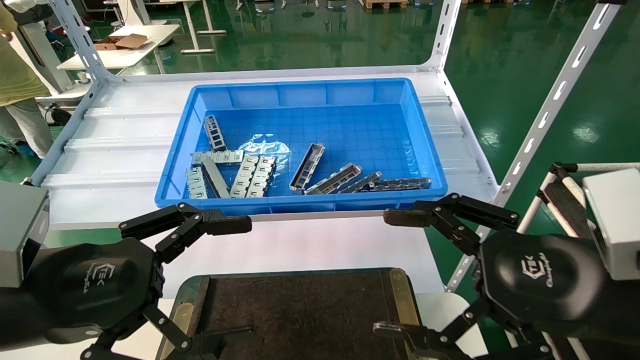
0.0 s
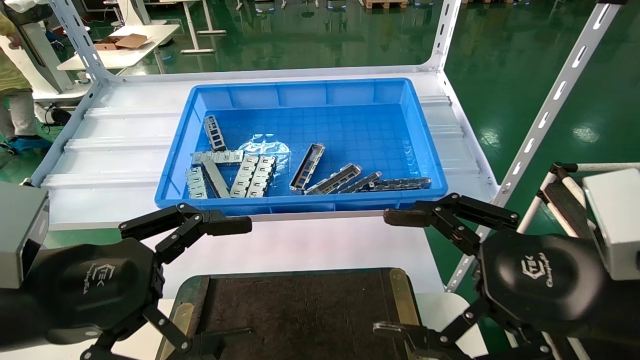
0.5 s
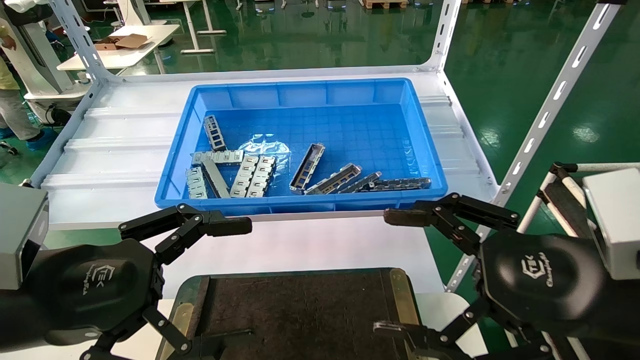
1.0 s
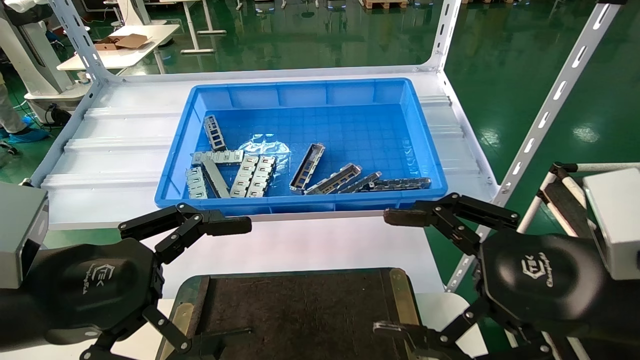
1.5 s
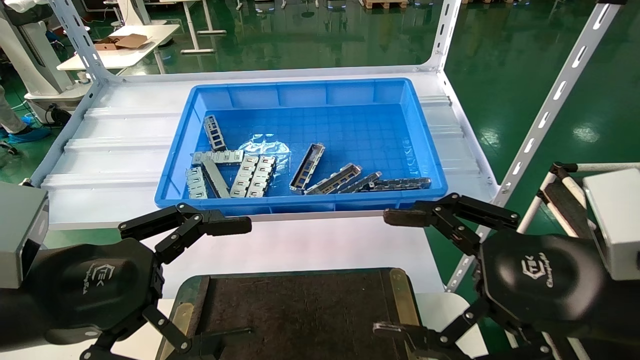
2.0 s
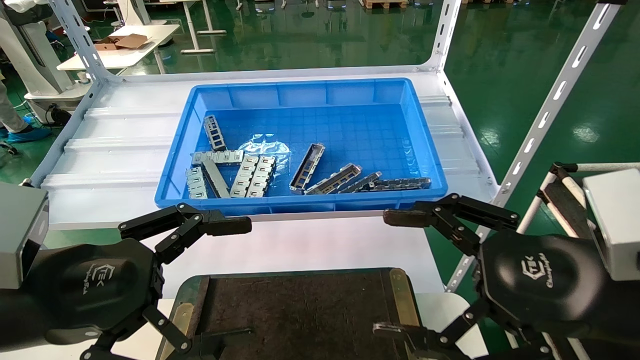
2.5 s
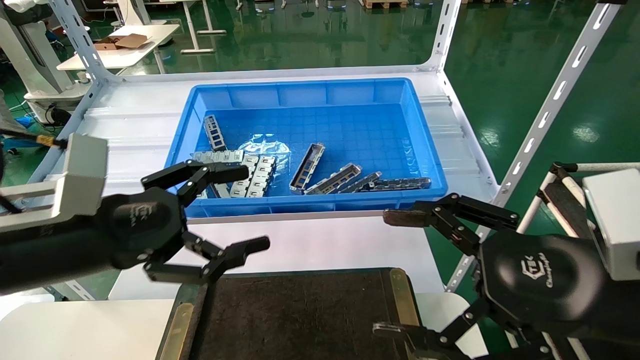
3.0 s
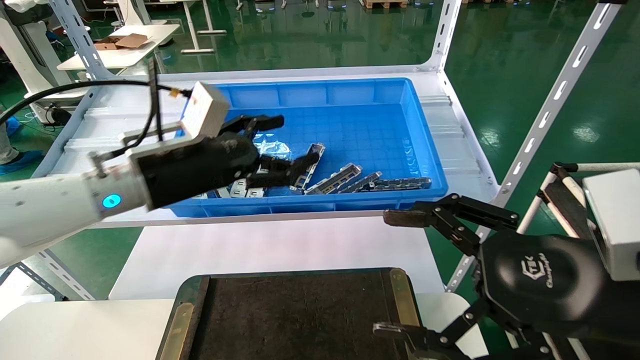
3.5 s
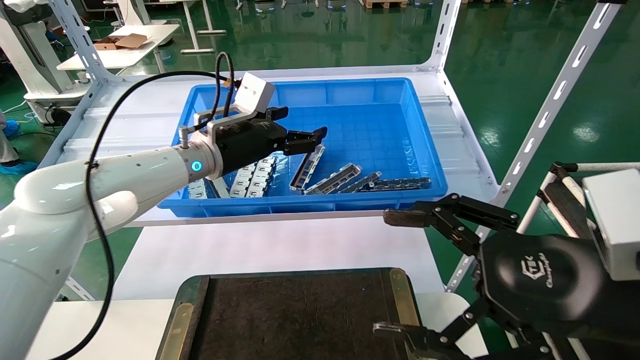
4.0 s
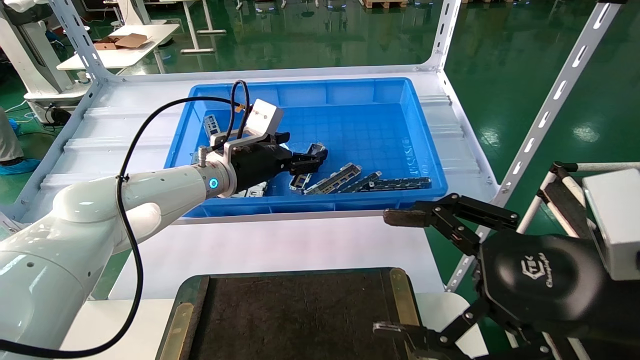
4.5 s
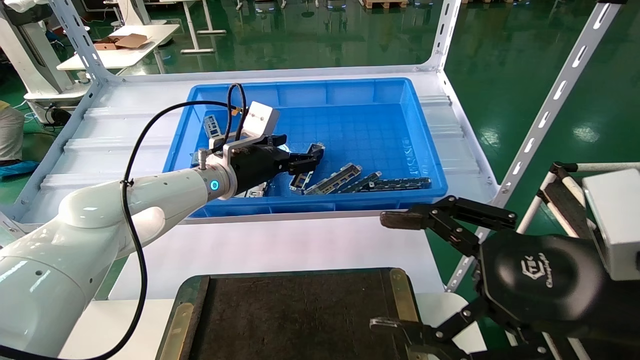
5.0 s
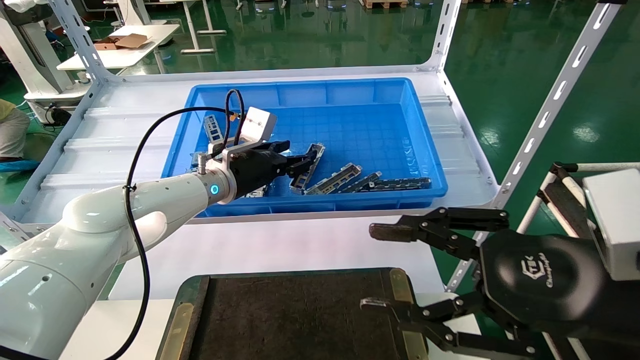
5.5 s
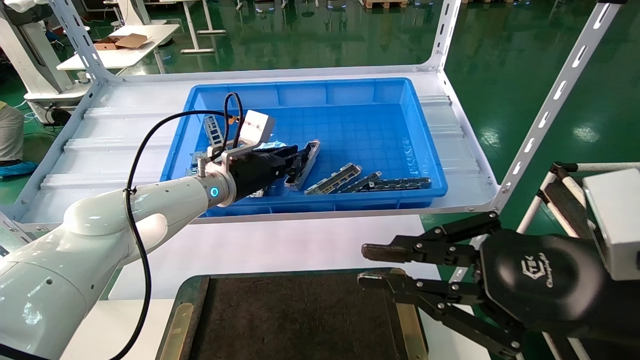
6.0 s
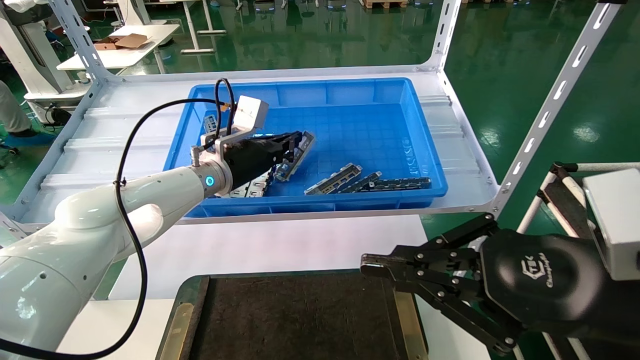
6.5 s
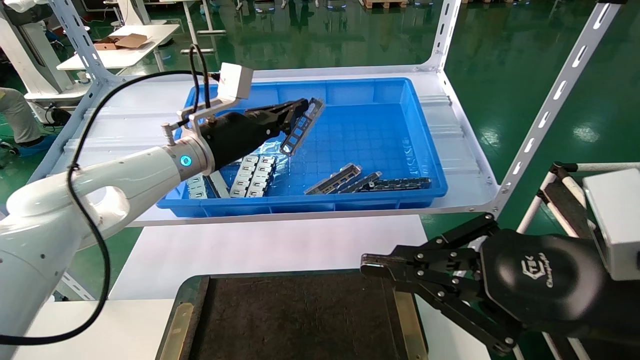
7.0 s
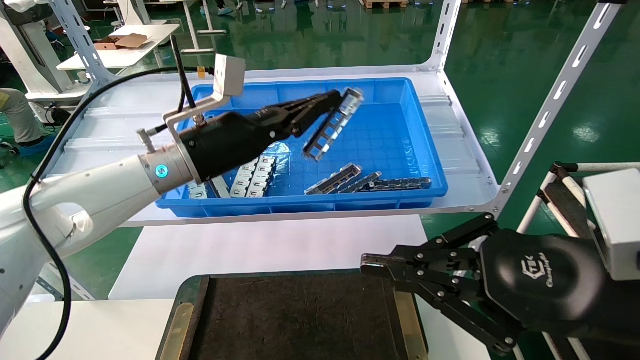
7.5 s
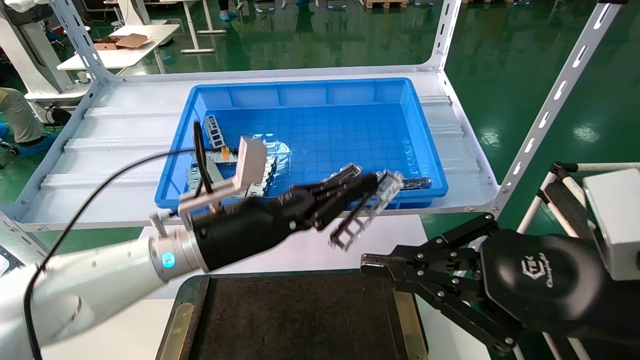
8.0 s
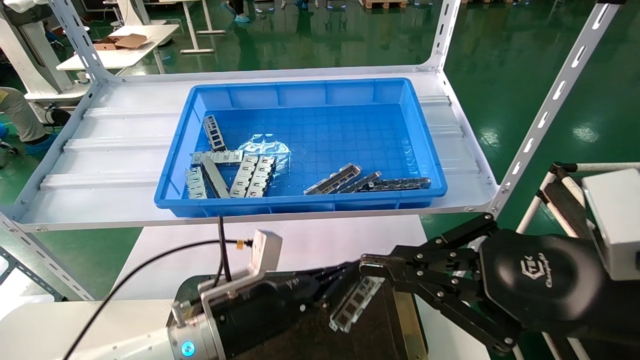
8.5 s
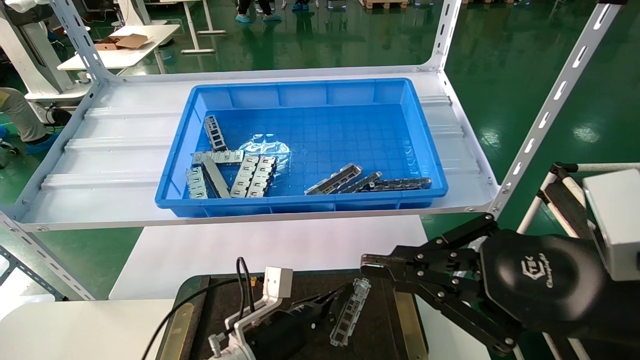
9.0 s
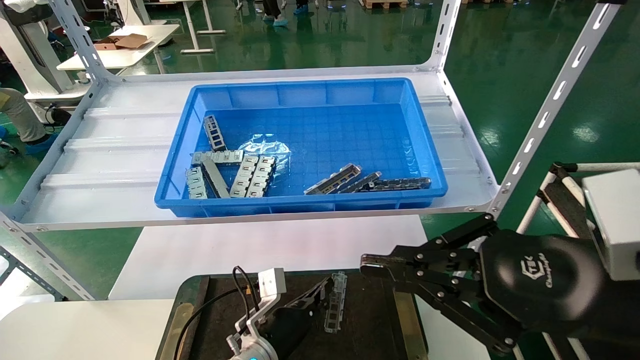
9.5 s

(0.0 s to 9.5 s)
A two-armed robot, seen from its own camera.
Task of the whole recording: Grasp the part with one hand and place it on the black container.
Step, 3.0 s - 6.5 s: Pick up the front USB bracket from the feeding area.
0.0 s - 2.0 s: Both grippers stay put.
2.0 s - 4.0 s: The left gripper shifts approximately 30 cm forward.
4.0 s - 5.5 s: The left gripper changes place by approximately 5 cm.
5.5 s - 7.5 s: The left gripper heads backward and upward, covering roughly 10 cm, and closes its fingers. The right gripper closes up.
7.5 s - 9.5 s: The left gripper is displaced downward by approximately 30 cm.

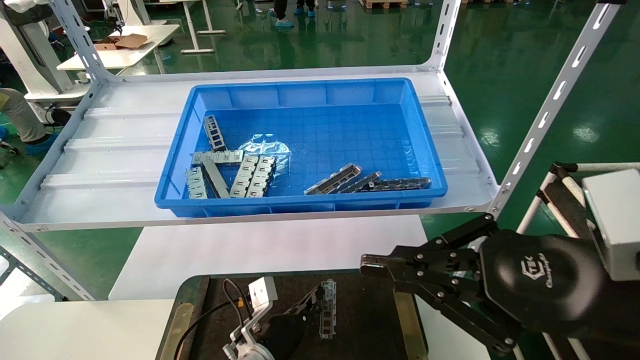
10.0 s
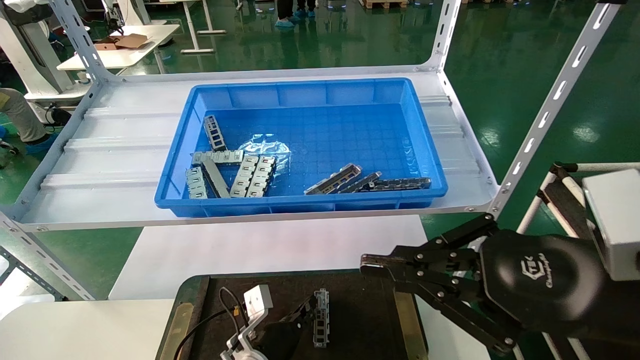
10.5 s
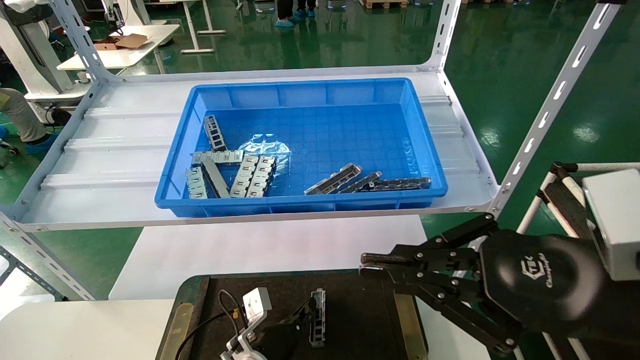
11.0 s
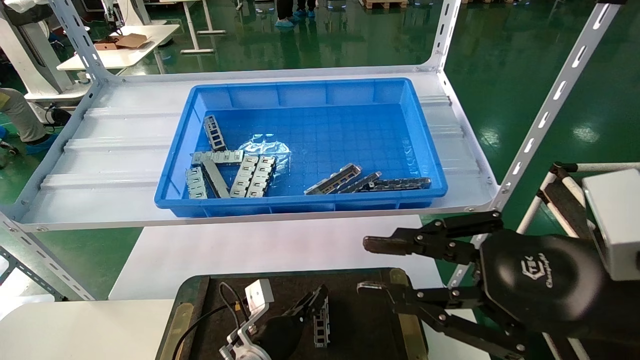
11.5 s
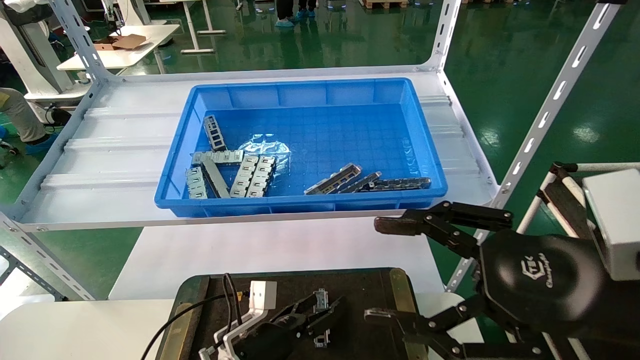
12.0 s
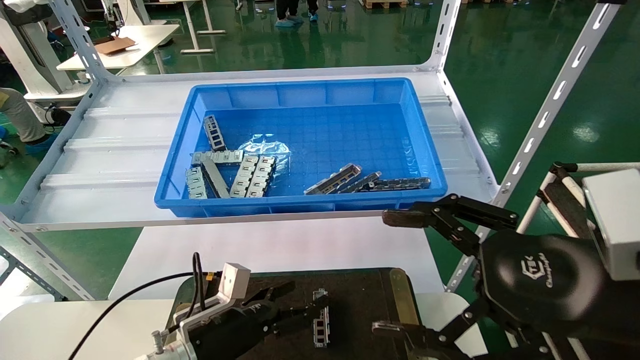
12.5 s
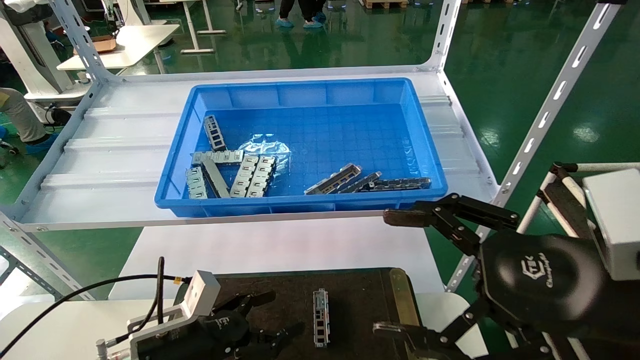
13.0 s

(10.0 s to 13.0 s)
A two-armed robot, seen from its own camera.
Task of the whole recording: Grasp the part with one hand and place it on the black container.
Step, 10.0 s - 12.0 s: Place the front USB bracket into the box.
10.0 s - 11.5 s: The grippers make only small movements.
11.5 s - 13.0 s: The left gripper is displaced to the left, upward and backward by roughly 20 cm, and opens up; the right gripper opens up.

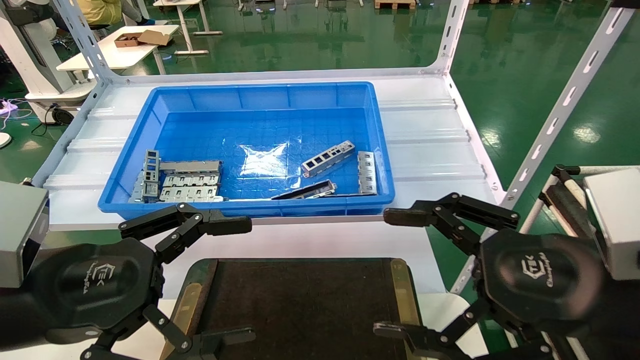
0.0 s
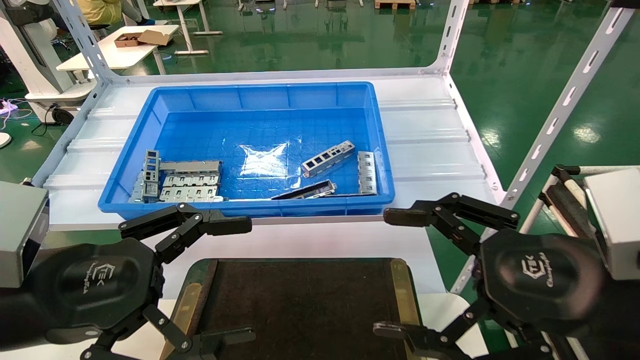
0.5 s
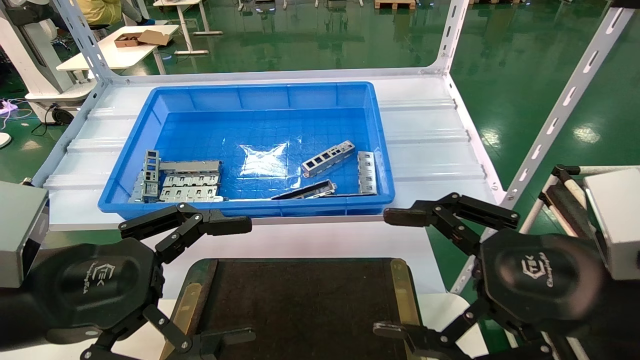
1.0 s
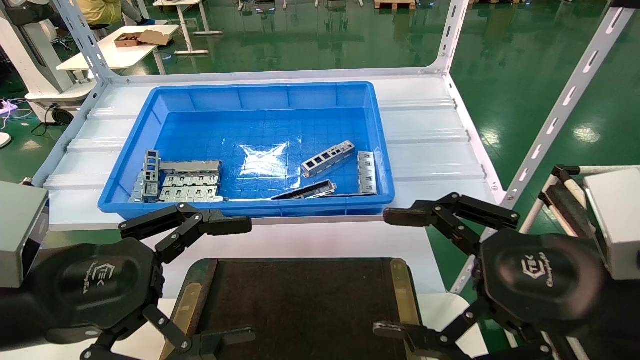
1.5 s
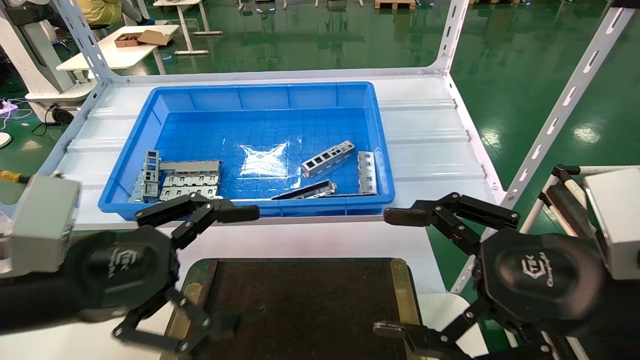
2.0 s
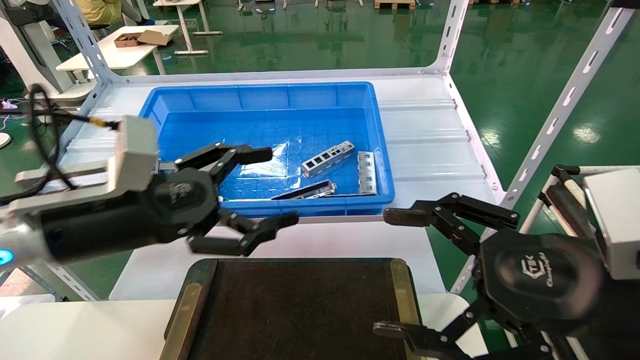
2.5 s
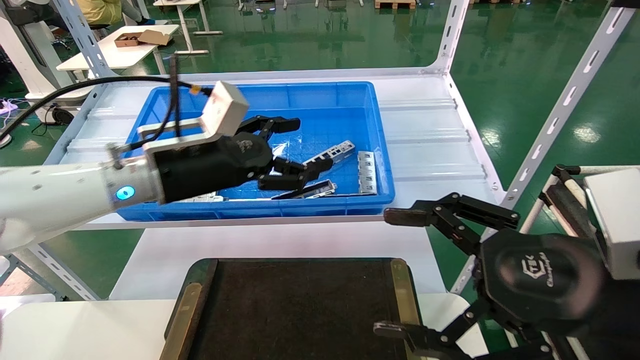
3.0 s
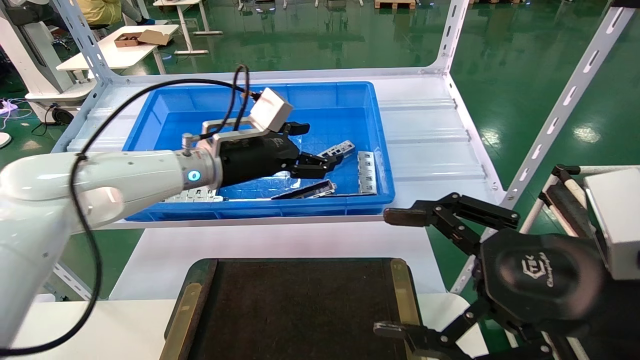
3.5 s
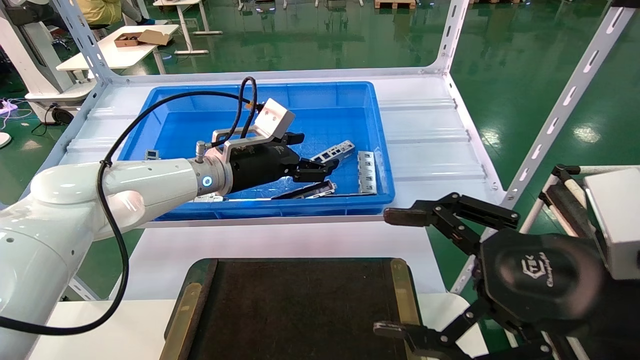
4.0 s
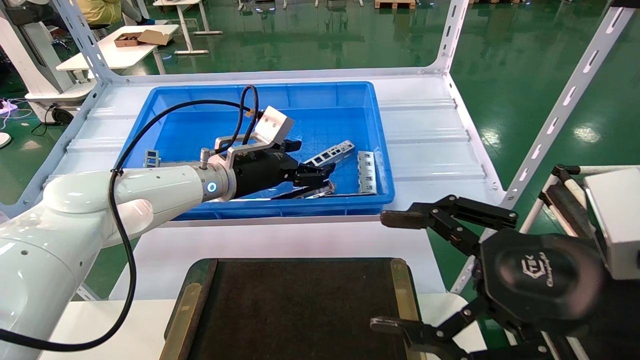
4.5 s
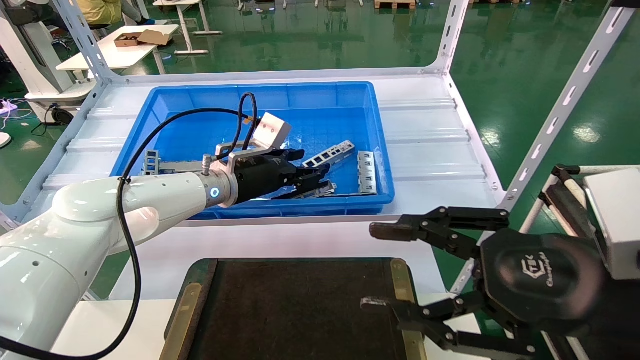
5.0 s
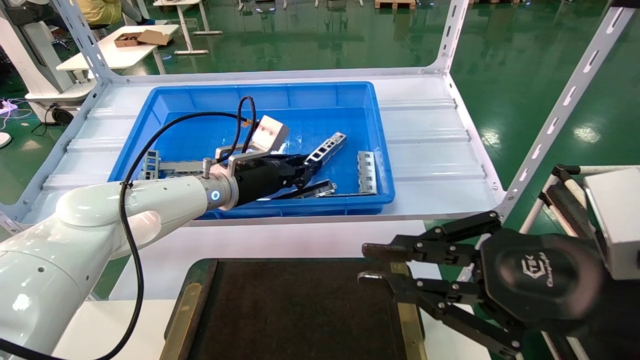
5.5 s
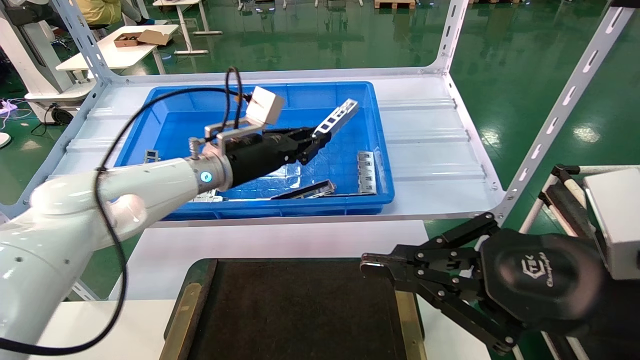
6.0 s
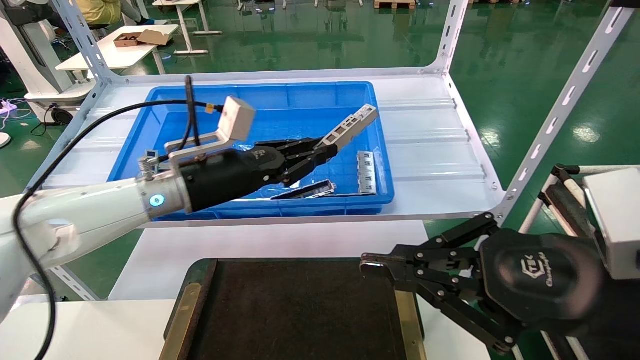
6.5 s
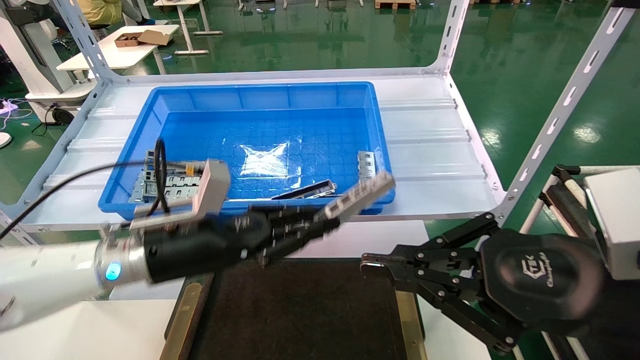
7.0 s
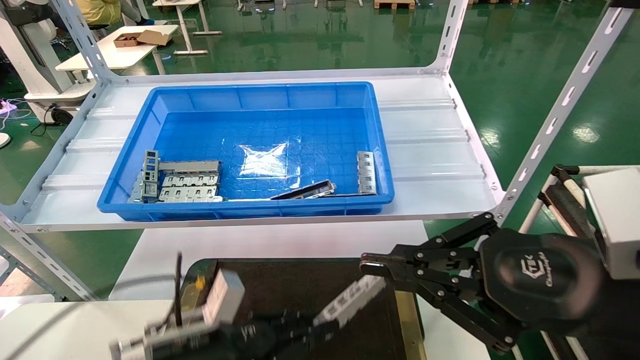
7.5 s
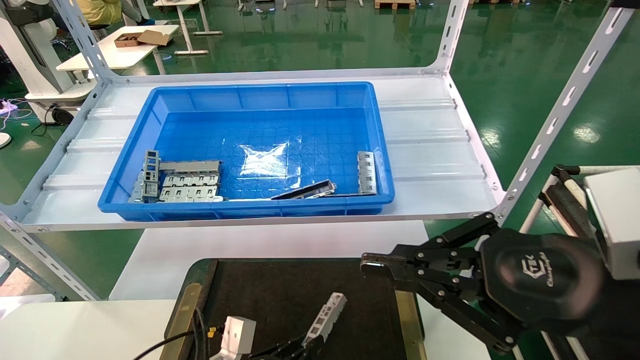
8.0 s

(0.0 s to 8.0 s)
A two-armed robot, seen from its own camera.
Task of the whole recording: Grasp the part with one hand and place it on the black container.
Step, 2.5 s - 5.0 s: Pick up the front USB bracket from the feeding area.
0.0 s - 2.0 s: The grippers move only a little.
2.0 s - 4.0 s: The left gripper moves forward and to the right, some 30 cm.
4.0 s - 6.0 s: The left gripper closes its fingers; the right gripper closes up.
6.0 s - 8.0 s: The left gripper travels downward and backward by approximately 35 cm.
